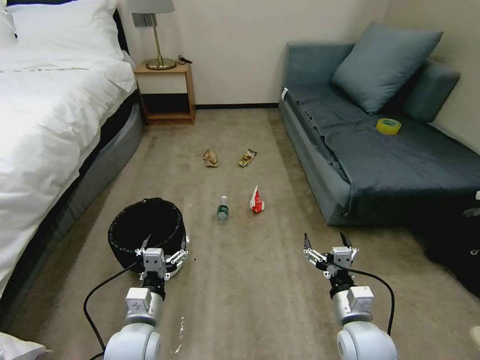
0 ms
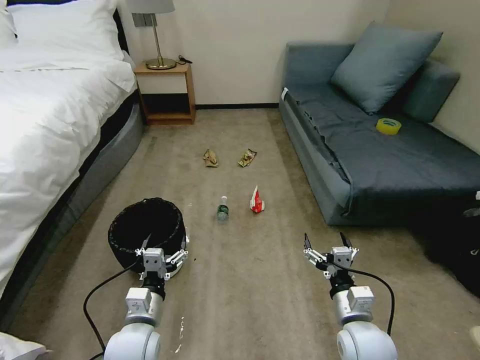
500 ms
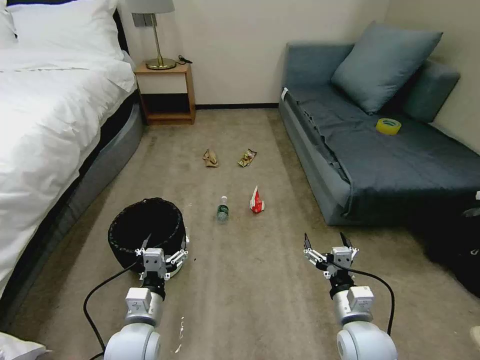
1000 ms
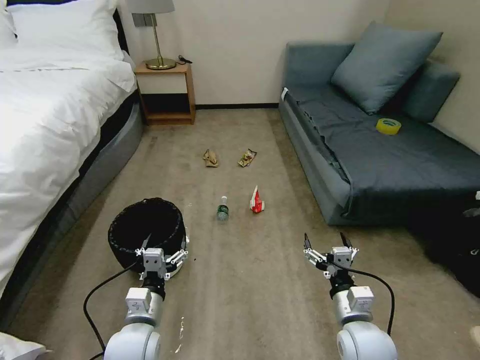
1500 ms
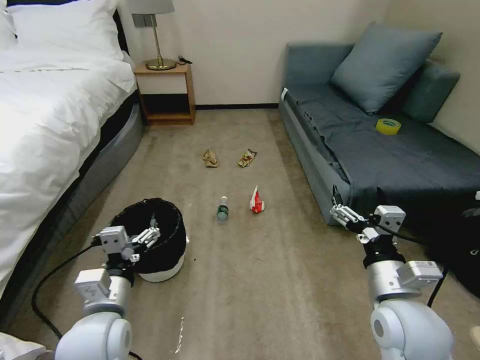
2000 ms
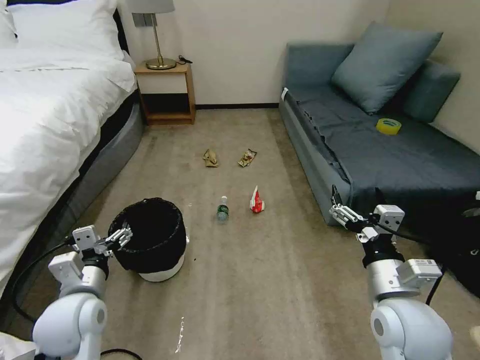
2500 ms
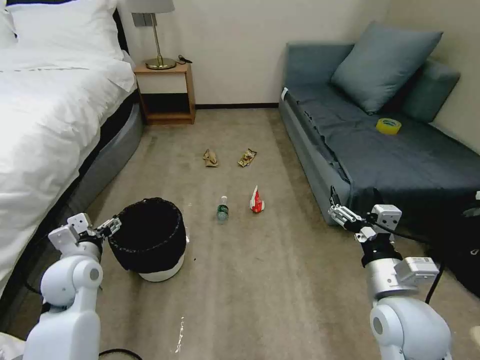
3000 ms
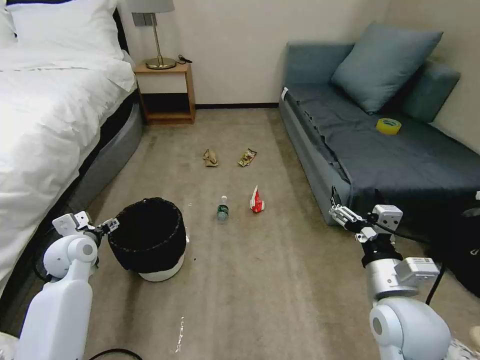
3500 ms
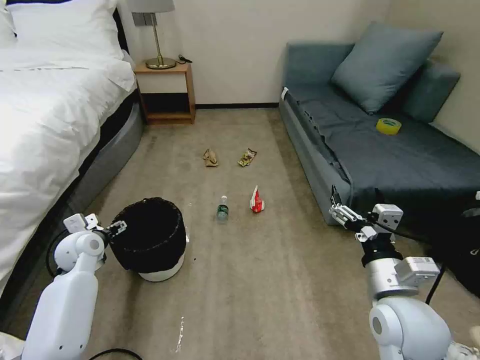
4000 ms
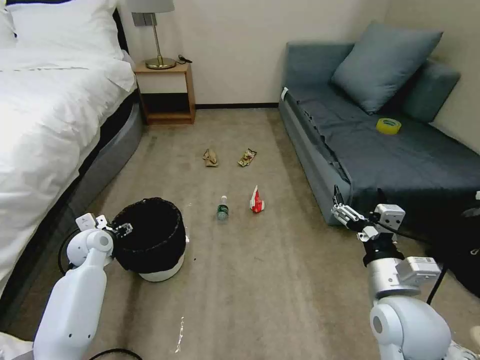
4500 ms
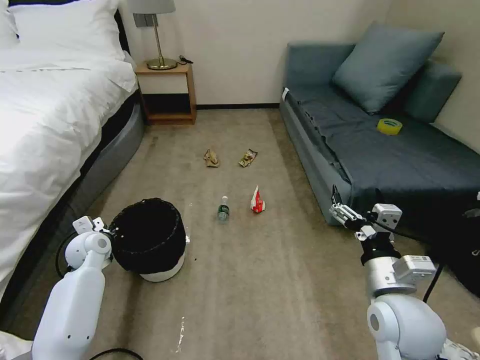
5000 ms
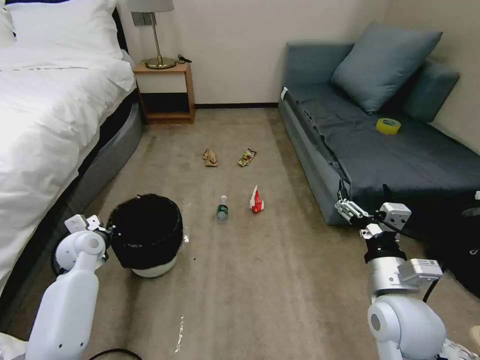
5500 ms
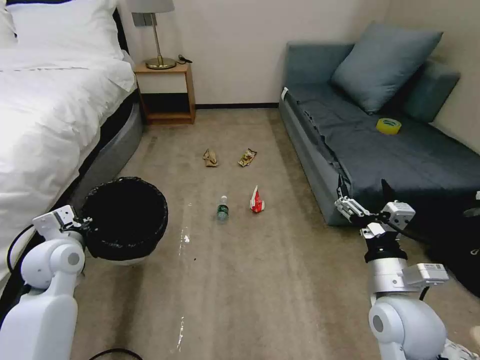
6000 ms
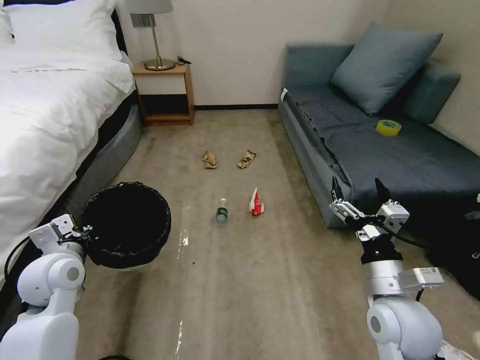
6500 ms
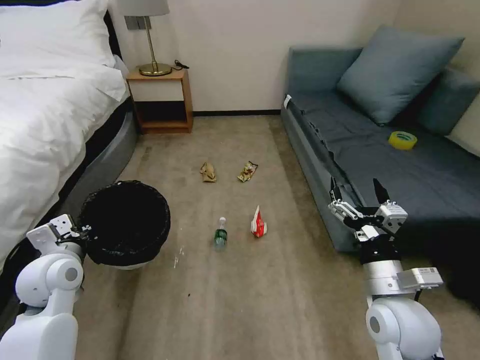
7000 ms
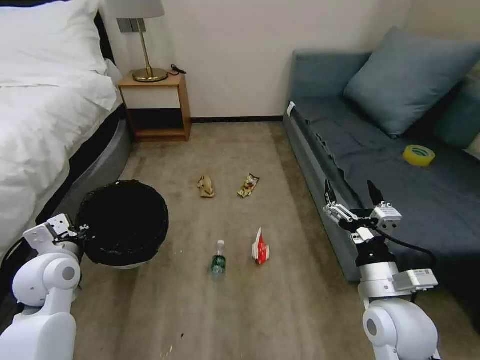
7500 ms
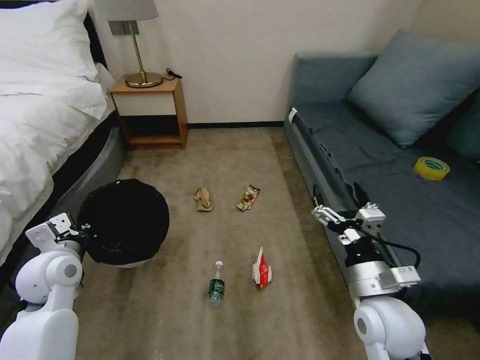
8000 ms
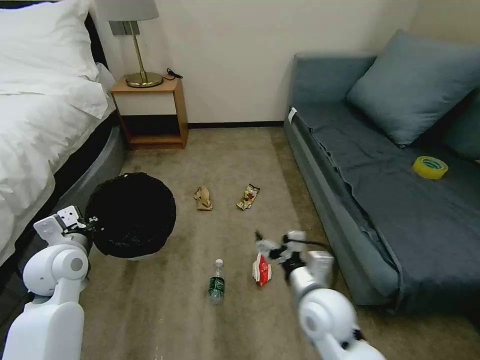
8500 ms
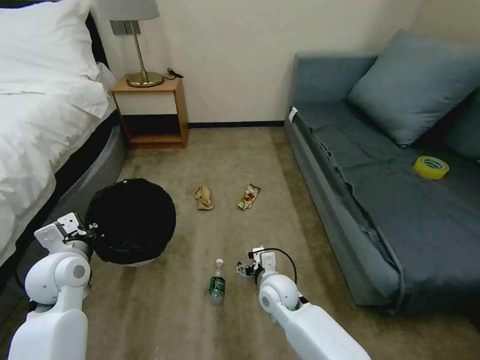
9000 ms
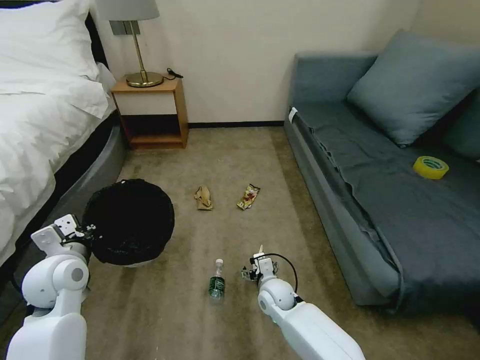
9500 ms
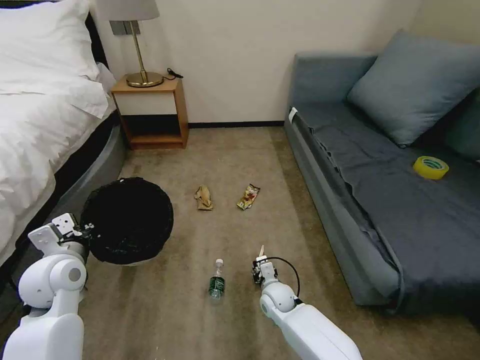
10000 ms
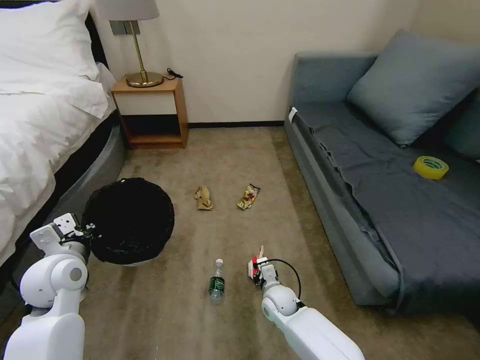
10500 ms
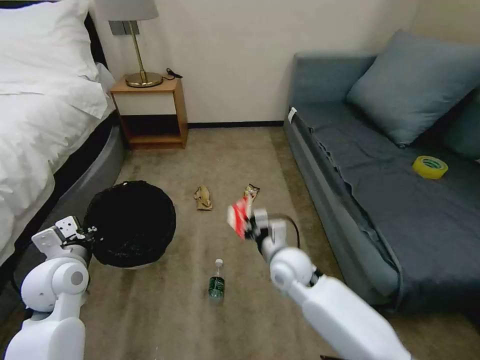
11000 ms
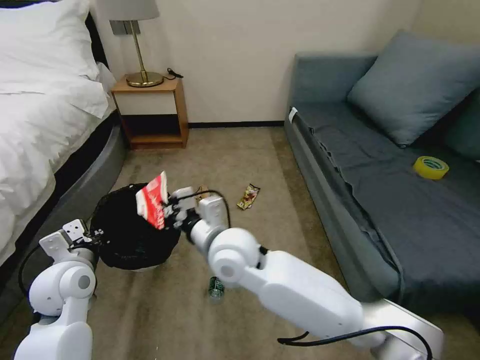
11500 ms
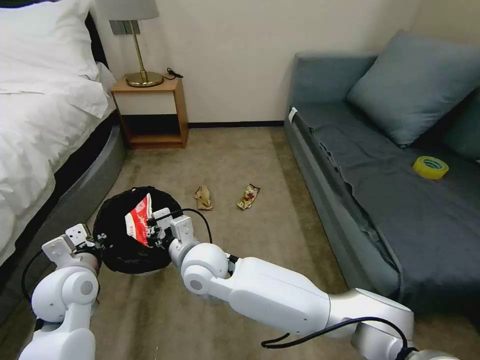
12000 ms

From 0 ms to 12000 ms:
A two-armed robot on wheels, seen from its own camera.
Task of the whole recording: Pick up the trash bin, then pick up the garbage on the floor and place it into the trash bin.
From 2000 ms to 4000 ms: The left gripper heads forward and to the left, covering approximately 25 cm.
From 4000 ms to 6000 ms: The left gripper goes roughly 10 cm backward and upward, and closes its fingers.
From 8000 ms to 10000 ms: The right gripper moves downward, to the left and forward, approximately 30 cm, and closes.
From 10000 ms to 12000 ms: The right gripper heads upward and to the left, covering about 30 cm, and closes.

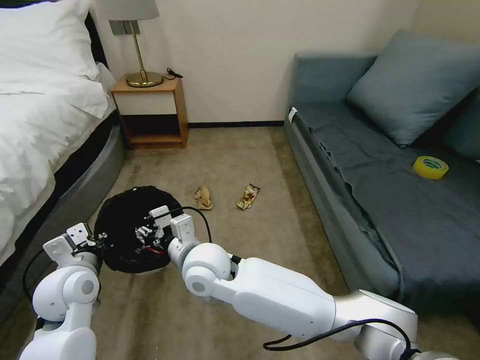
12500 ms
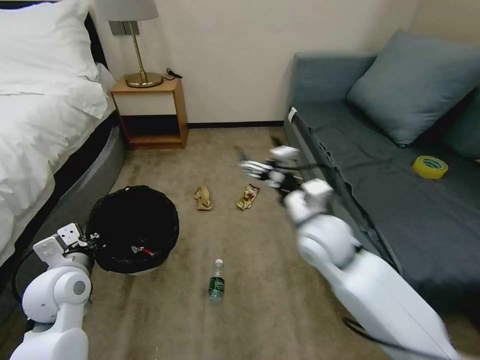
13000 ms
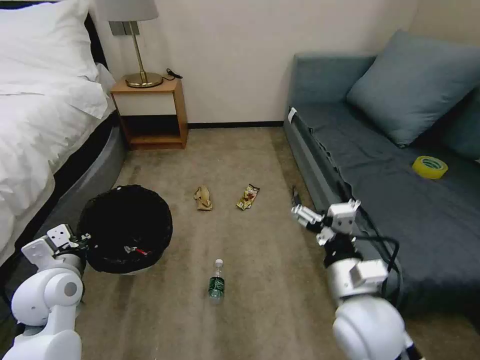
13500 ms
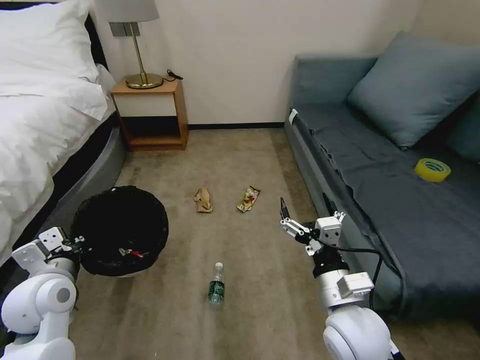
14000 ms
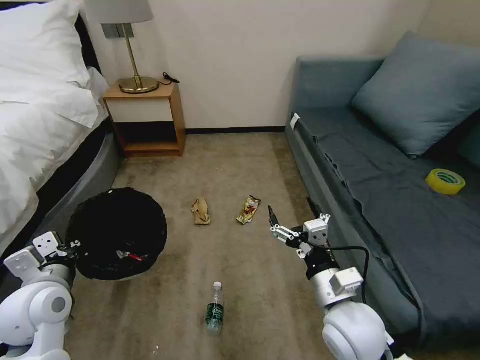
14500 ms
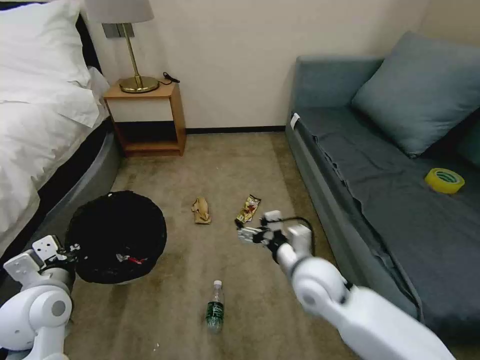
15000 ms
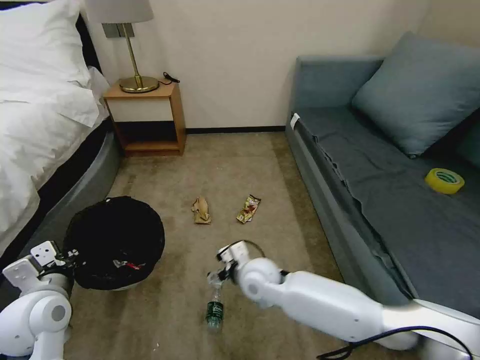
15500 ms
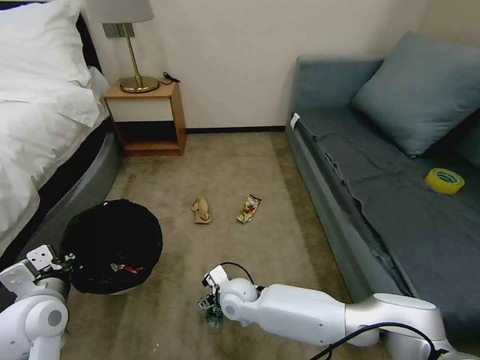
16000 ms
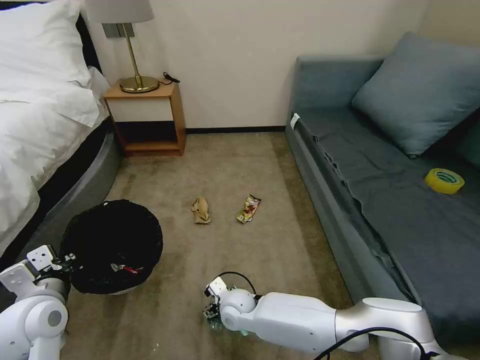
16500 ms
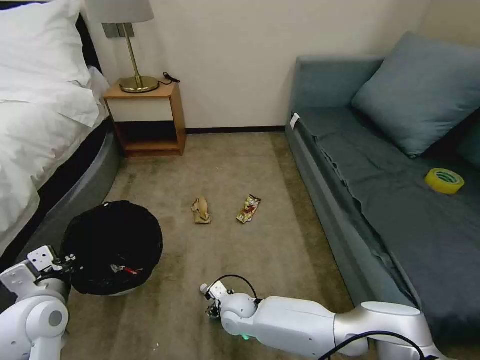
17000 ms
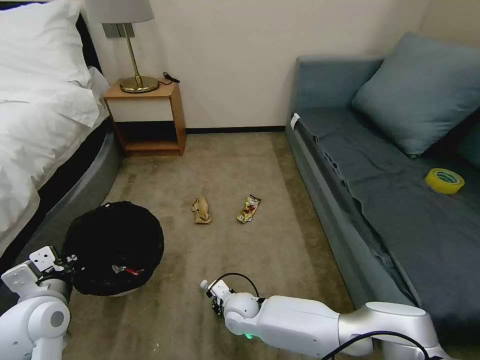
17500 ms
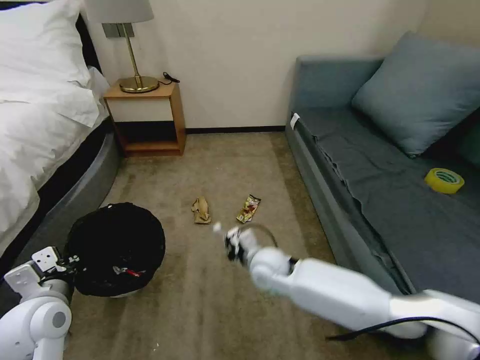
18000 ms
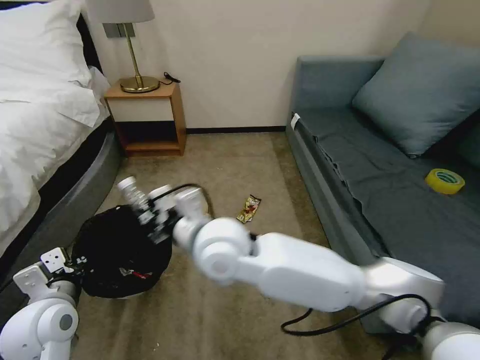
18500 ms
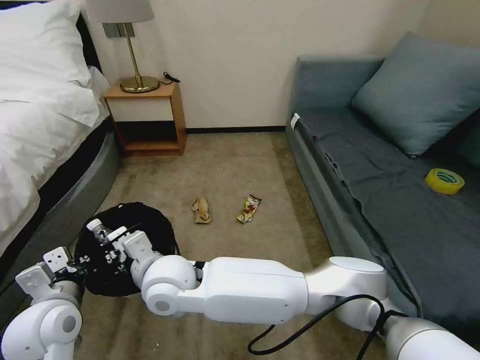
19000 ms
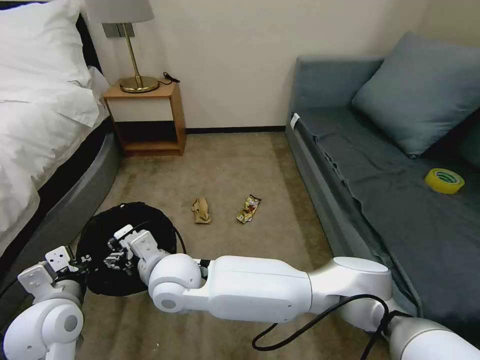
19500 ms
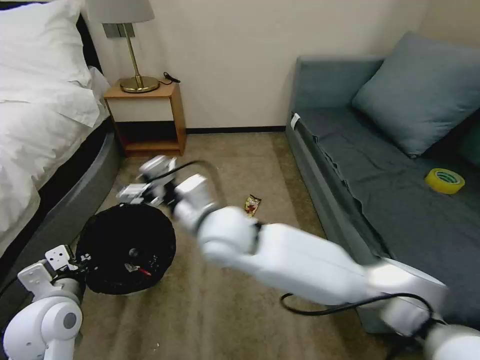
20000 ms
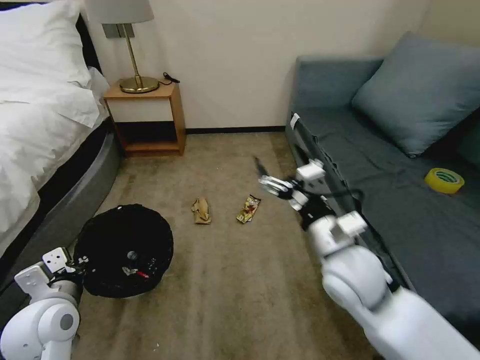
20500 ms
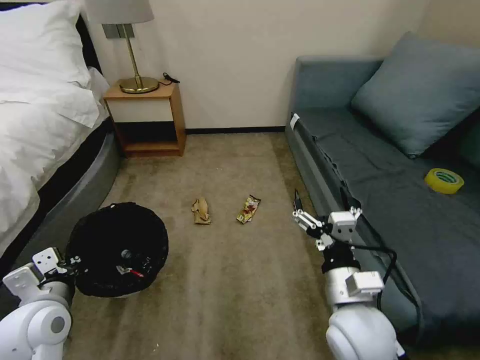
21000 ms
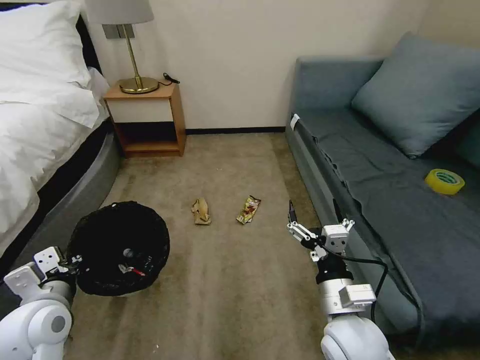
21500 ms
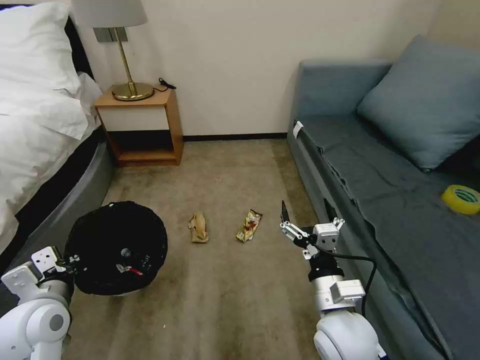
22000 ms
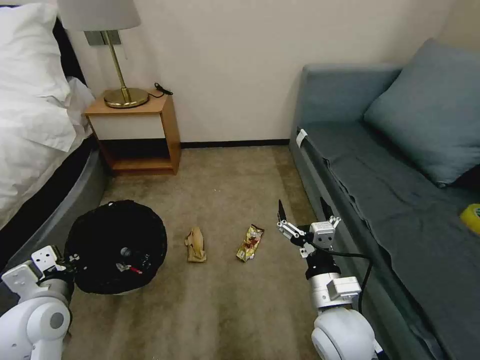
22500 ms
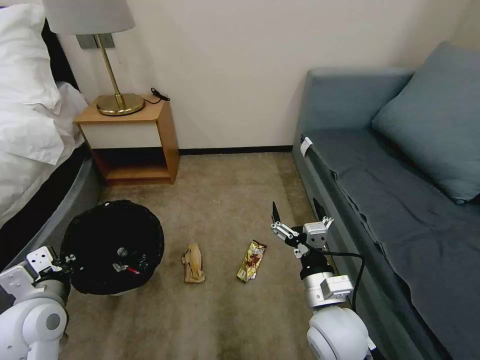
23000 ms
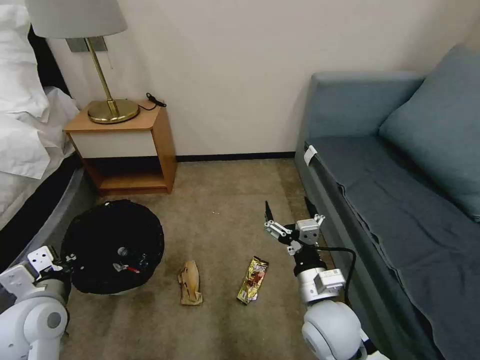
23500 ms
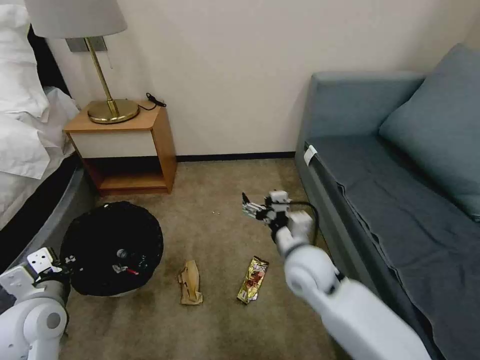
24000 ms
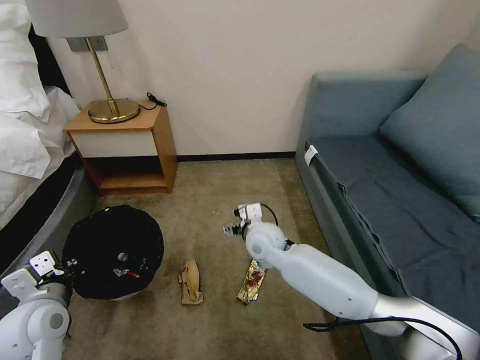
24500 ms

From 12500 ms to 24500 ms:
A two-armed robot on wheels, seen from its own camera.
Task of the whole recording: Pick up the trash bin, then pick up the garbage on the floor and place it into the trash bin.
From 12500 ms to 14500 ms: The right gripper shifts some 30 cm to the right and backward, and opens its fingers.
From 14500 ms to 16500 ms: The right gripper is displaced to the left, downward and forward by about 30 cm.
From 16500 ms to 18500 ms: The right gripper goes roughly 30 cm upward, and closes.
From 18500 ms to 20500 ms: The right gripper moves to the right, approximately 20 cm, and opens.
From 20500 ms to 22500 ms: The right gripper is displaced downward and backward by roughly 10 cm.
From 22500 ms to 24500 ms: The right gripper is displaced forward and to the left by roughly 25 cm.

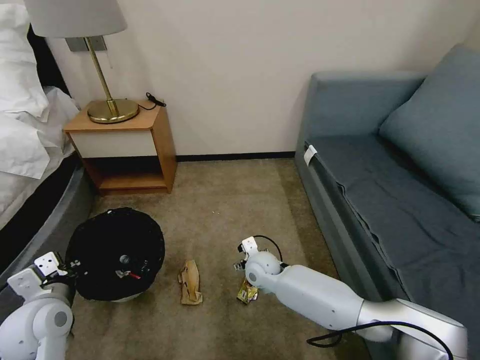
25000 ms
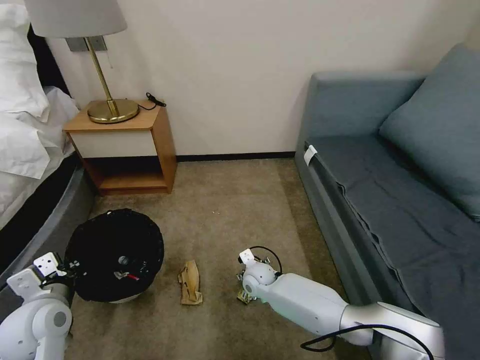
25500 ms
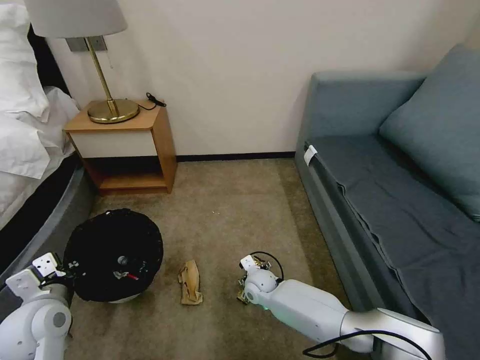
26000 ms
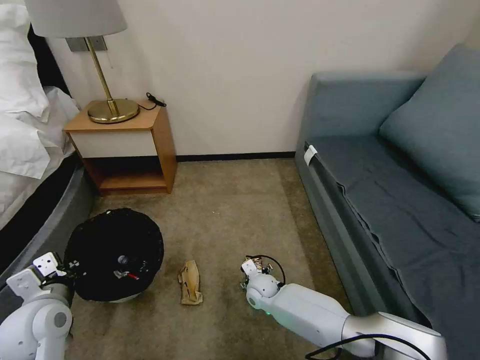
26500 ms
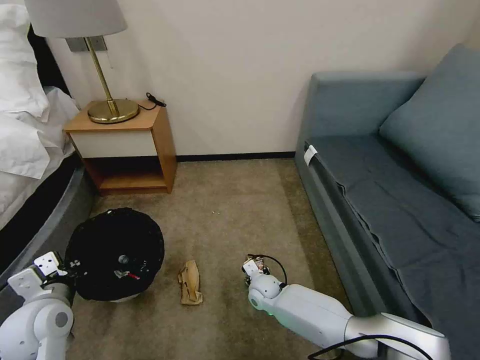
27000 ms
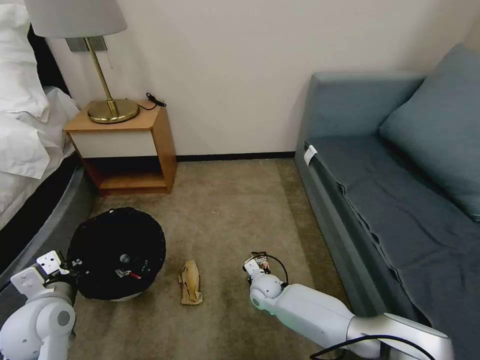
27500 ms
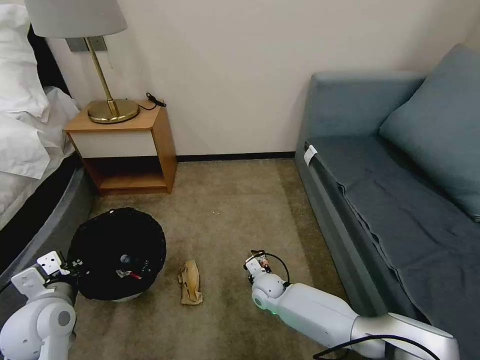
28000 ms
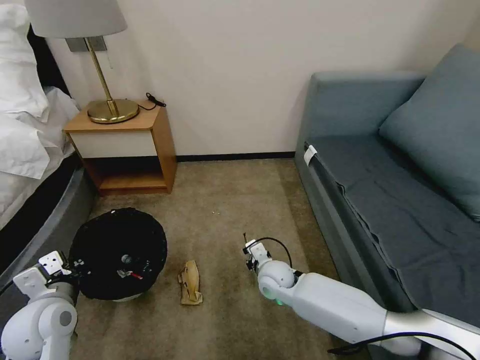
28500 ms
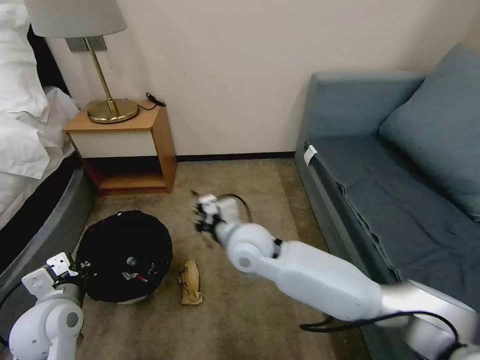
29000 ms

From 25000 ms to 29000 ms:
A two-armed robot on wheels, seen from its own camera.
Task of the whole recording: Pick up the trash bin, then pick up the garbage on the floor and place it into the trash bin.
From 25000 ms to 27000 ms: The right gripper goes some 10 cm downward.
From 27000 ms to 29000 ms: The right gripper goes about 30 cm upward, and closes its fingers.
